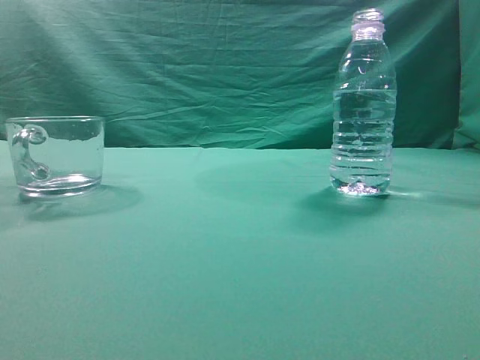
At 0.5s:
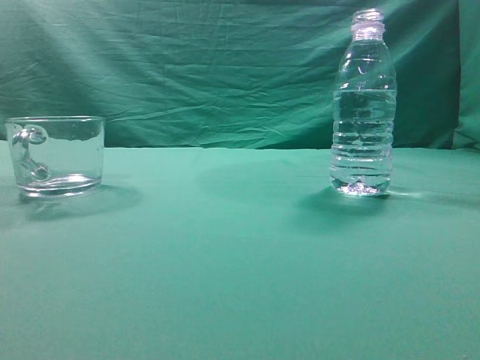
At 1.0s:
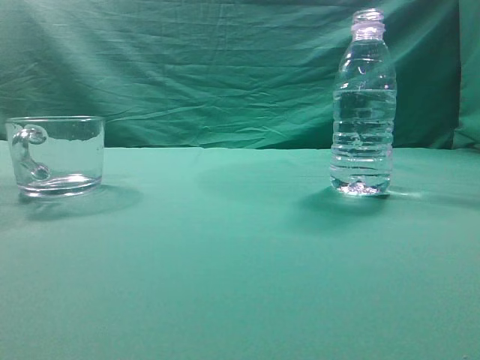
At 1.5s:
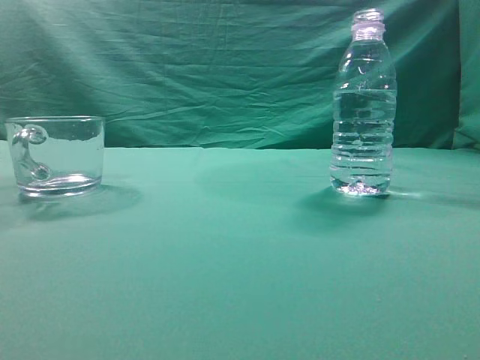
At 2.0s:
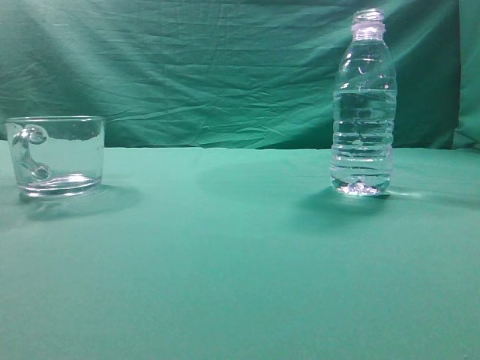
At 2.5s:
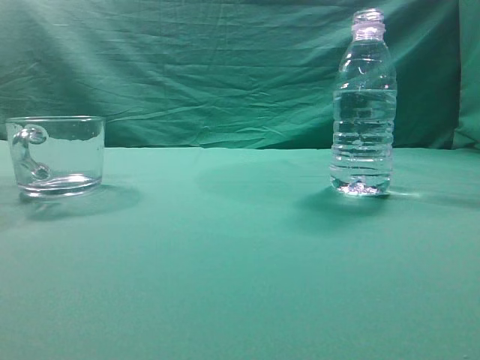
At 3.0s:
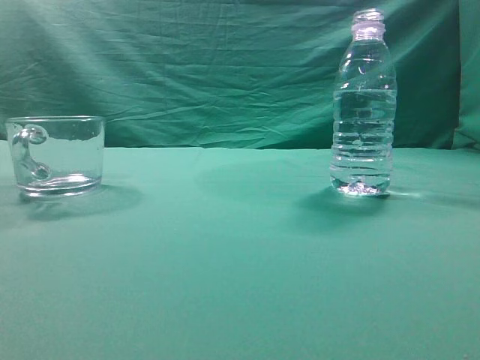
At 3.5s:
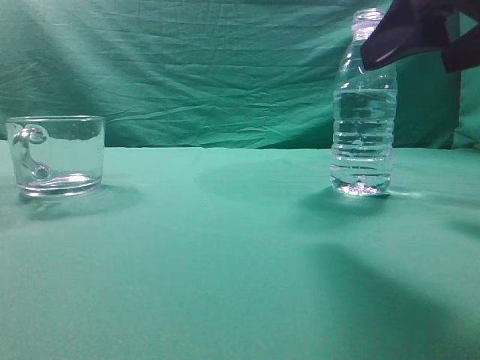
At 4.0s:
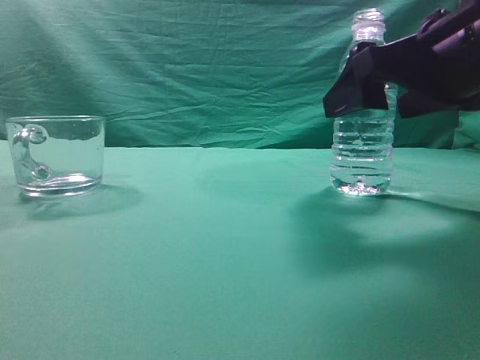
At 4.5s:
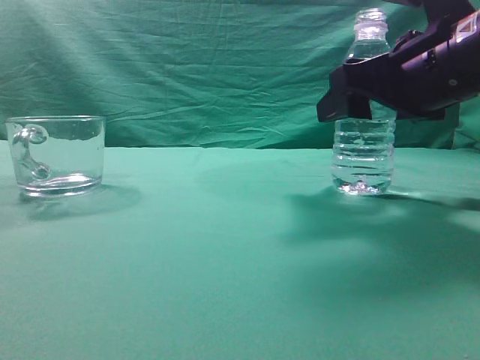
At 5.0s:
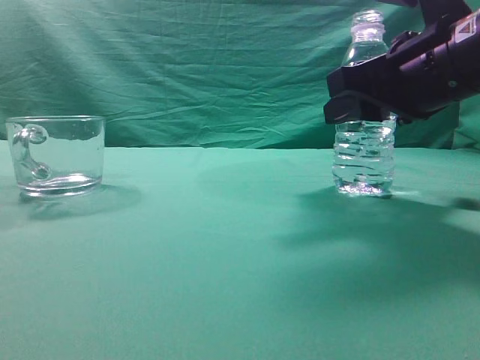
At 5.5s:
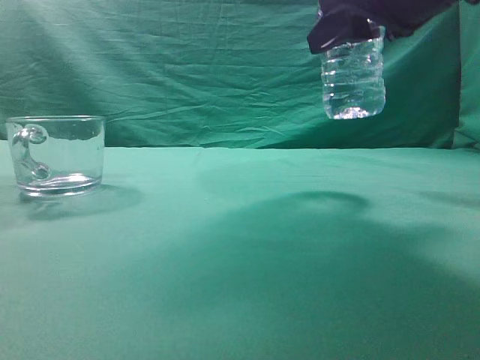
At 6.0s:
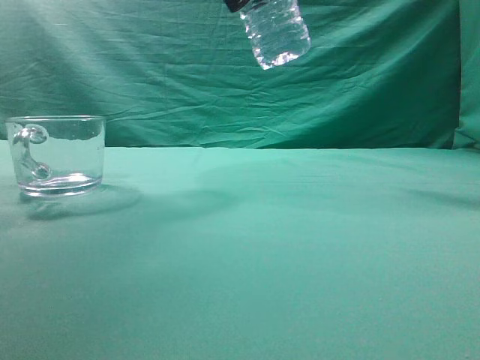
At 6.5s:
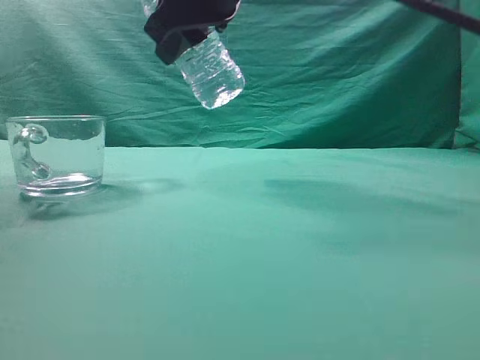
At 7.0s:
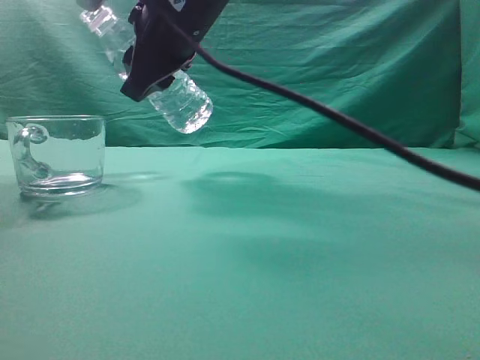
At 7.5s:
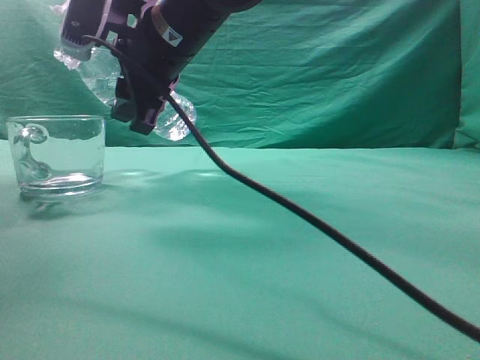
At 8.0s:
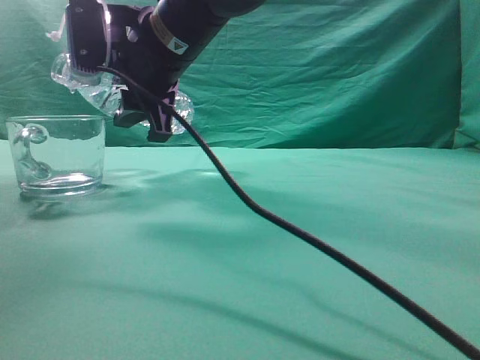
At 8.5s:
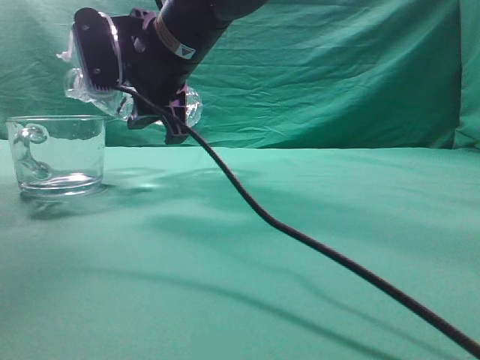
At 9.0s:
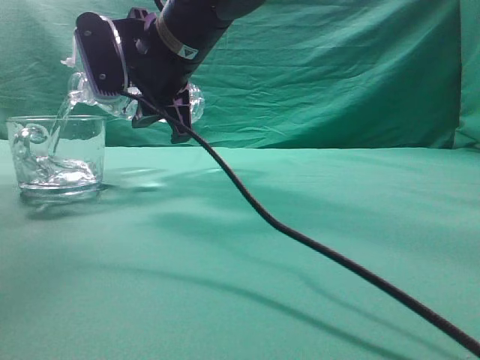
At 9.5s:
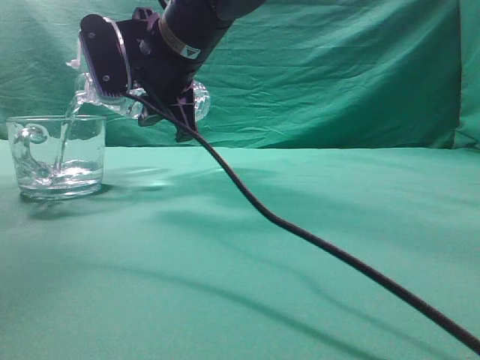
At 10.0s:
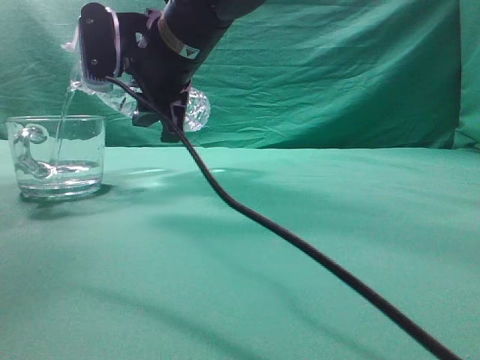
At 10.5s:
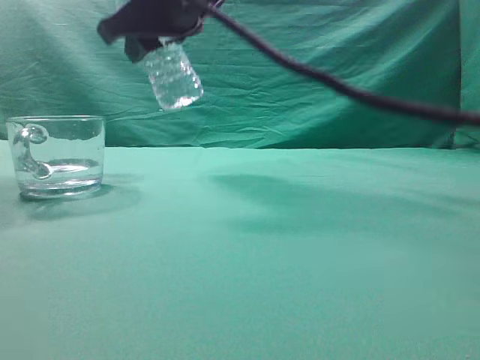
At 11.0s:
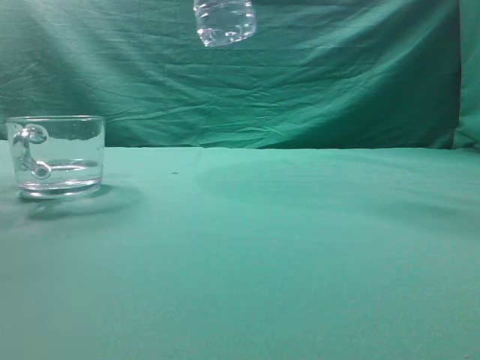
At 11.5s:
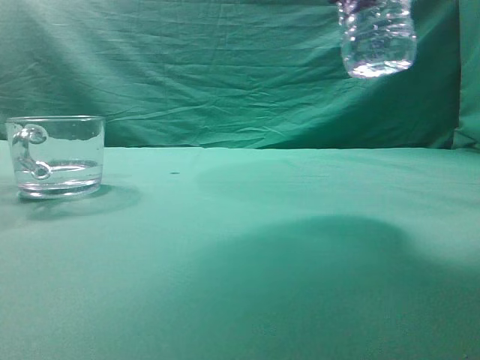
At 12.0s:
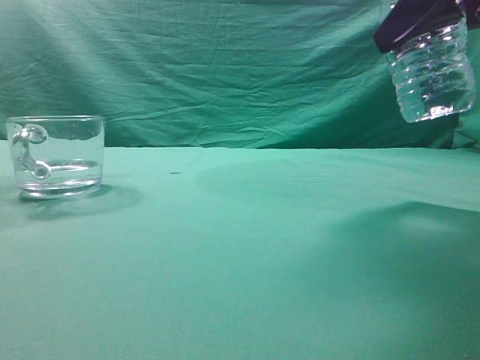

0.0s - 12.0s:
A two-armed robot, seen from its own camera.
Task of the whole recording: pick up the water bottle and pour the water in it into the glass.
Step, 0.0s - 5.0s: Grasp the mineral water bottle.
Step, 5.5s - 10.0s: Pour water into the teacup.
2.0s - 4.0s: The right gripper heads forward, downward and to the left, covering some 25 cm, and opens up.
4.0s - 6.0s: The right gripper goes approximately 20 cm upward and to the left, and closes.
6.0s - 8.0s: The right gripper is displaced to the left, downward and forward by some 15 cm.
8.0s - 10.0s: The grippers stay close to where they were, moving slightly.
10.0s - 12.0s: The right gripper shifts approximately 30 cm to the right.

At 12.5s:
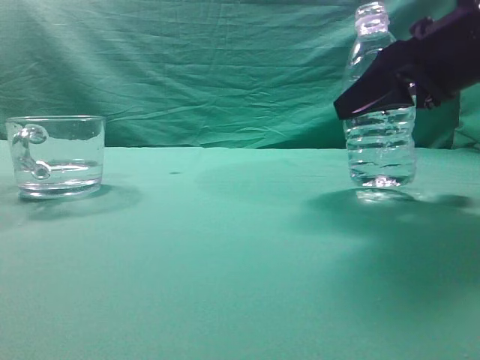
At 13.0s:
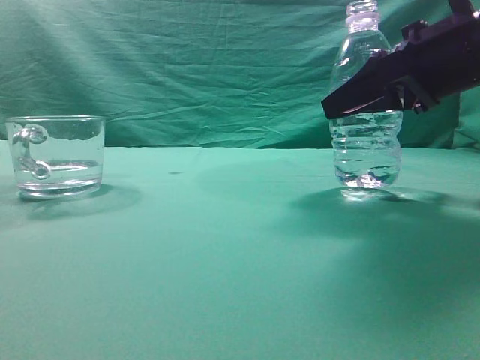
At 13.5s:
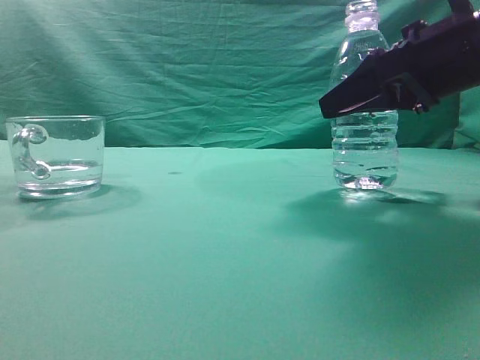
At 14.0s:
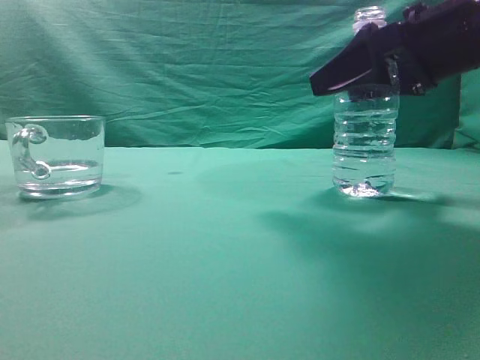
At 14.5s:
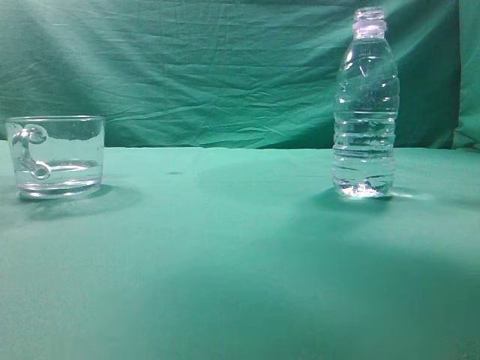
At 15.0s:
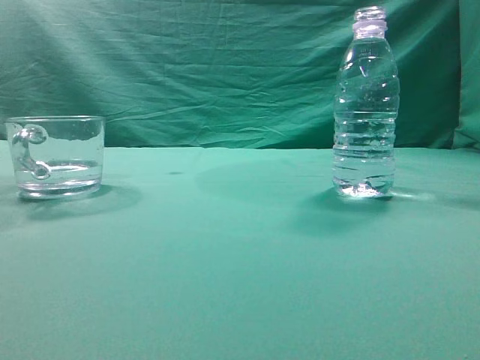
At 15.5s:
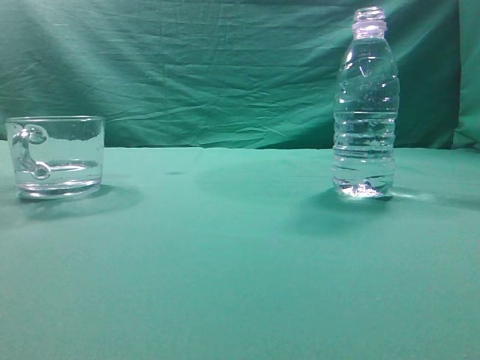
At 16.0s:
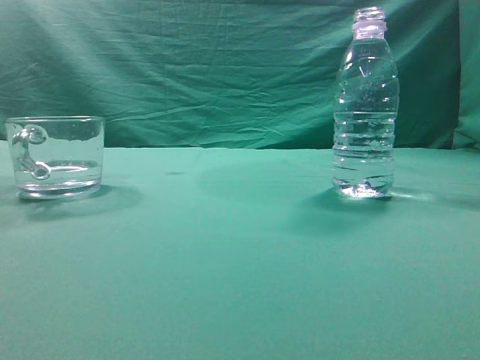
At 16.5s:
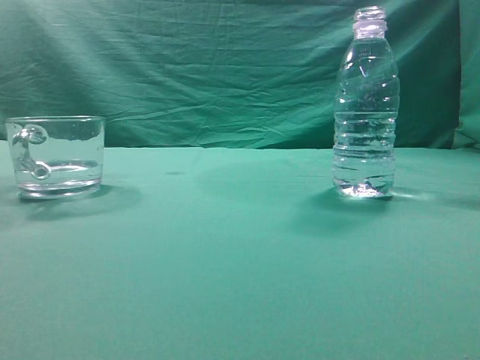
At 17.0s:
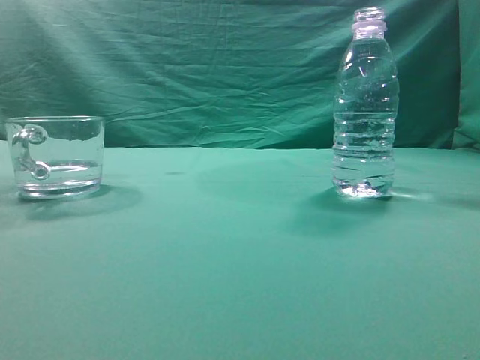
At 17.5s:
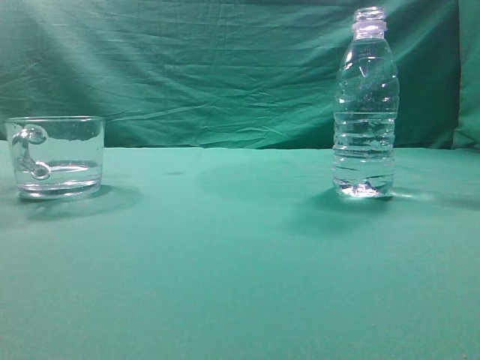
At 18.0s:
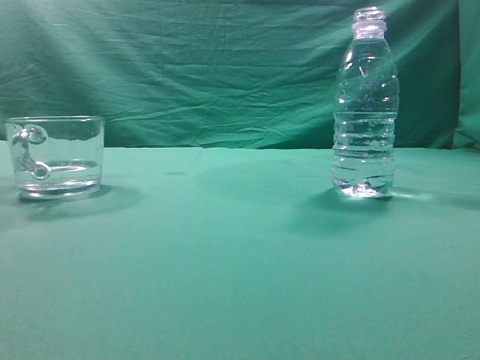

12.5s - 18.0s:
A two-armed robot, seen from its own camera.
Task of the whole recording: pick up the water bottle and pour the water in it into the glass.
12.5s - 14.5s: The right gripper moves upward, roughly 10 cm.
14.5s - 16.0s: The right gripper moves backward and upward, some 30 cm, and closes.

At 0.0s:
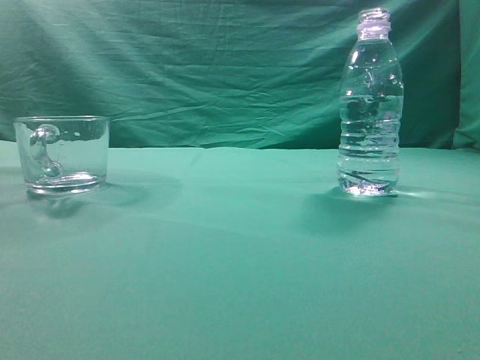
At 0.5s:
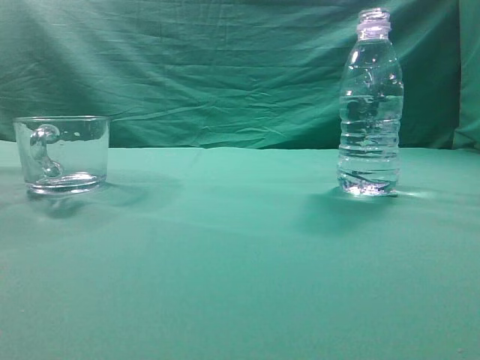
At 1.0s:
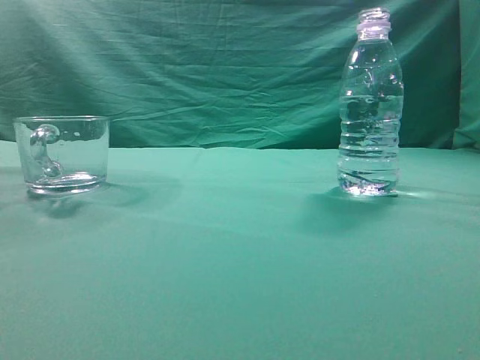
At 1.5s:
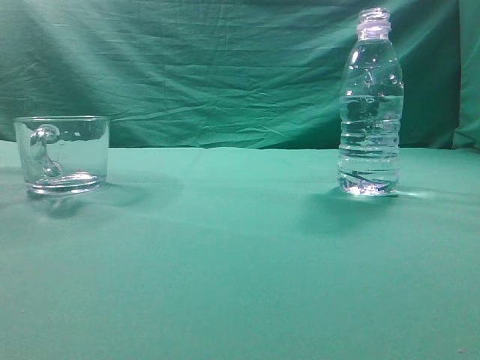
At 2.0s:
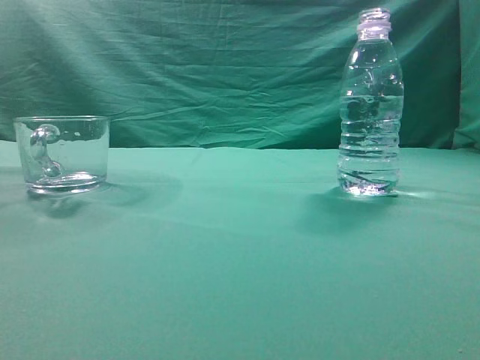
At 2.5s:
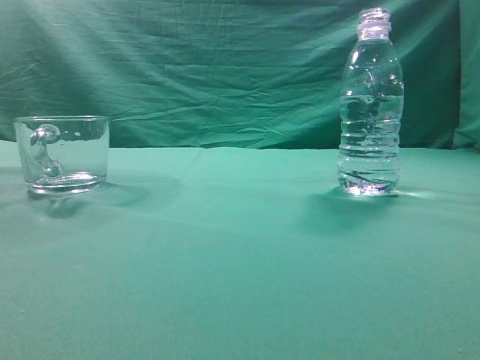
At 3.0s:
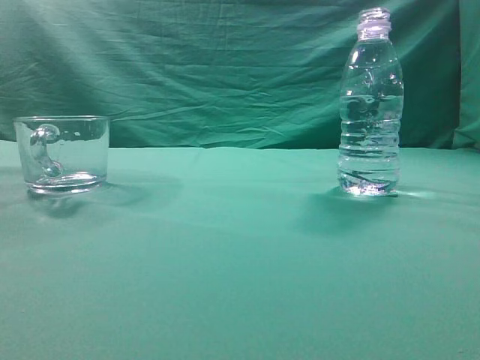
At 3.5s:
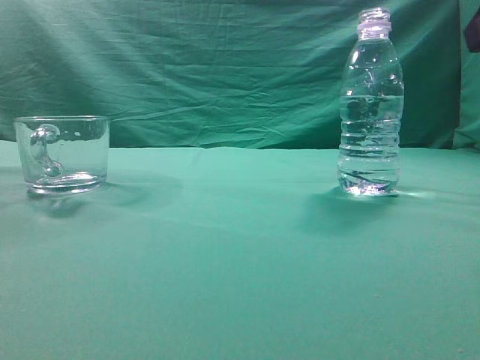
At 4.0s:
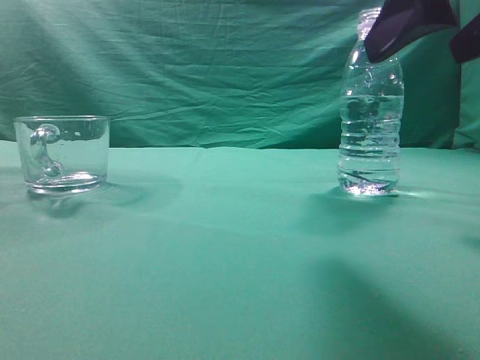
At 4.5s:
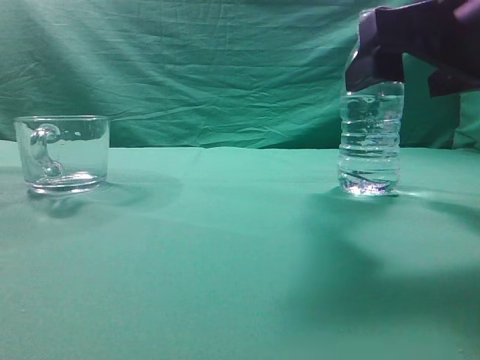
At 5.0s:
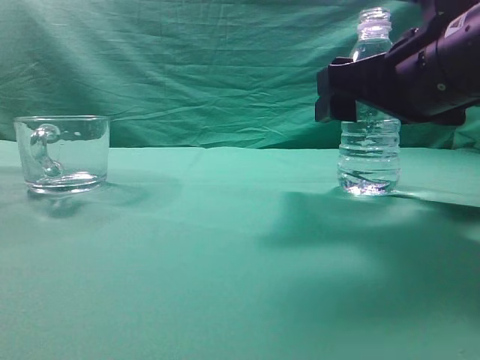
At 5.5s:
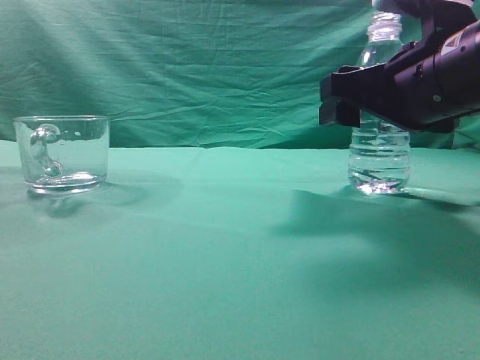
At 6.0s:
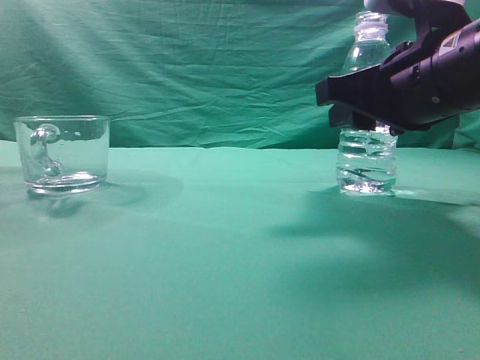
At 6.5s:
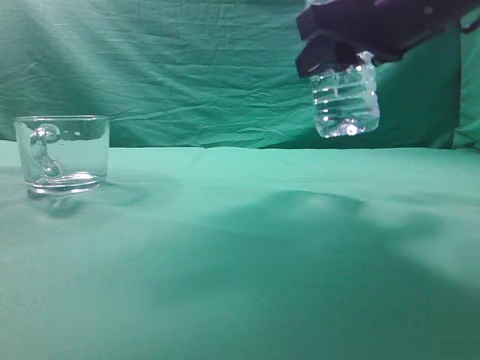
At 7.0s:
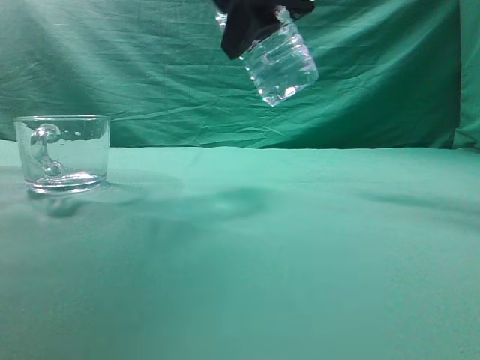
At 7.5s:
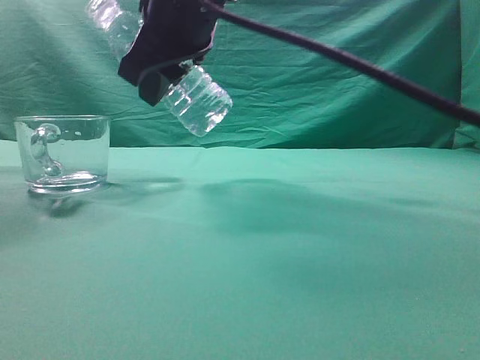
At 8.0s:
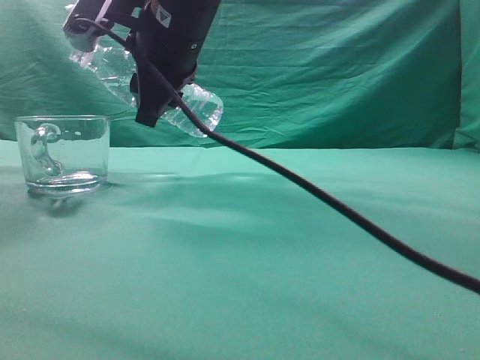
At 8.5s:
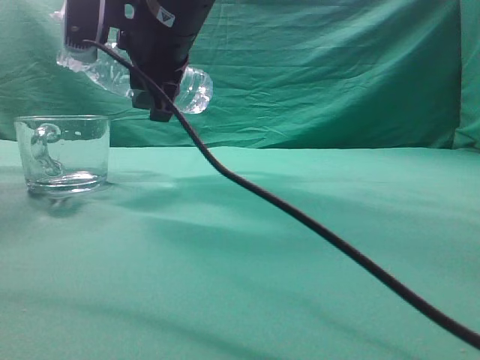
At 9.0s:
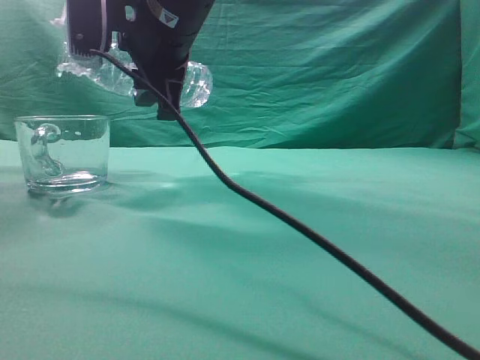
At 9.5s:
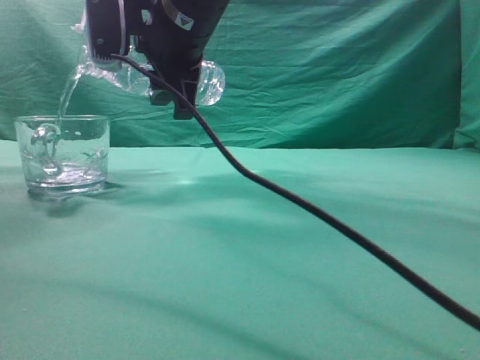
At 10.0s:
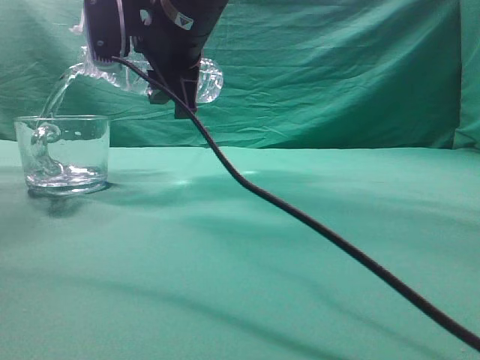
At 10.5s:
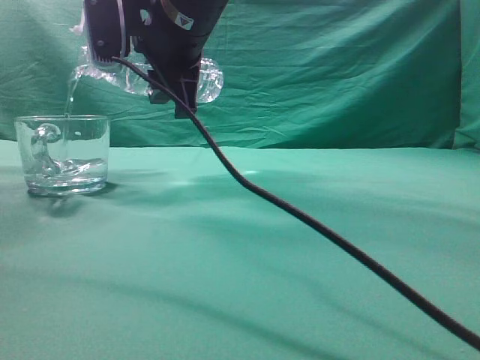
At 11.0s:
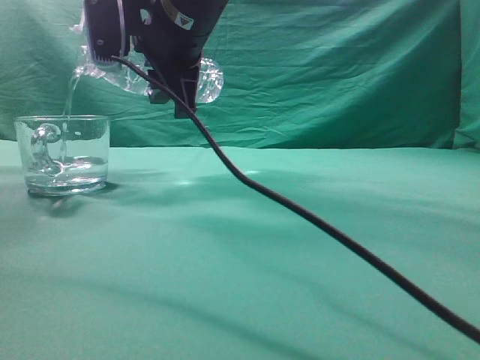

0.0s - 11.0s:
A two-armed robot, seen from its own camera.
Task of the whole recording: pick up the water bottle and pour the water in it into the glass.
Step, 0.0s - 6.0s: Grasp the mineral water bottle.
3.5s - 5.5s: The right gripper goes roughly 15 cm forward, downward and to the left.
5.5s - 7.5s: The right gripper goes some 20 cm to the left and upward, and closes.
9.0s - 11.0s: The grippers move only a little.
